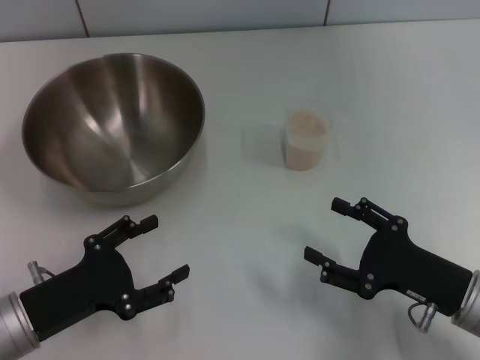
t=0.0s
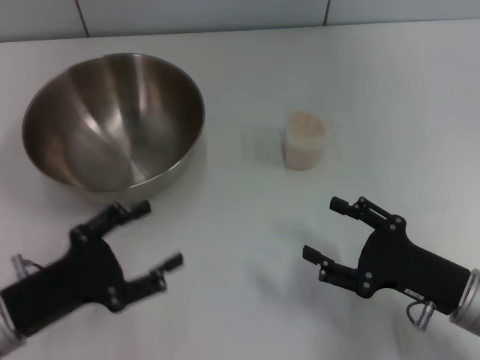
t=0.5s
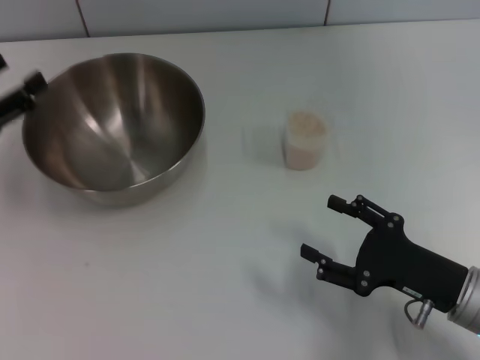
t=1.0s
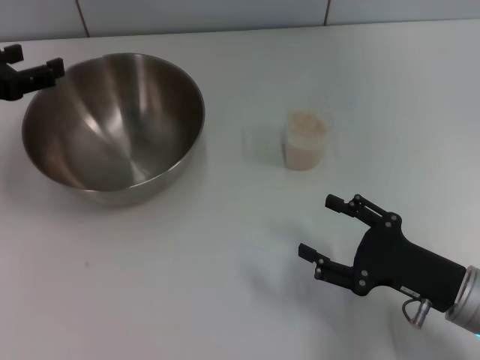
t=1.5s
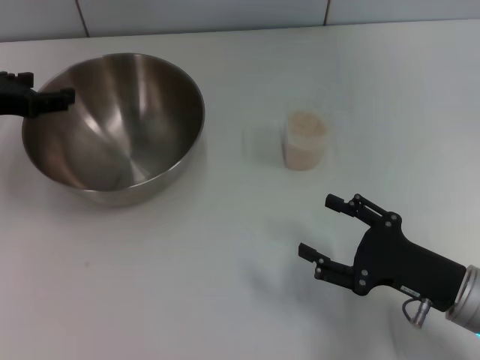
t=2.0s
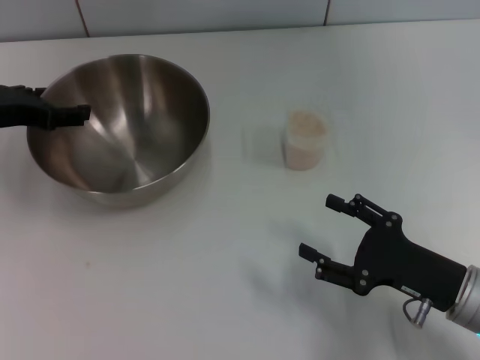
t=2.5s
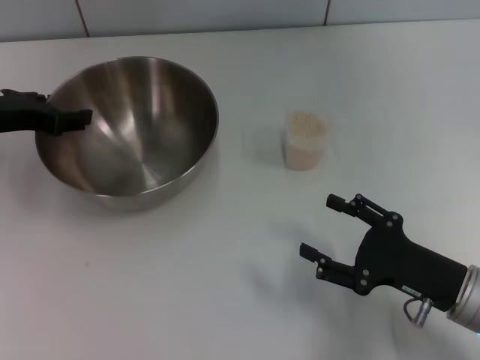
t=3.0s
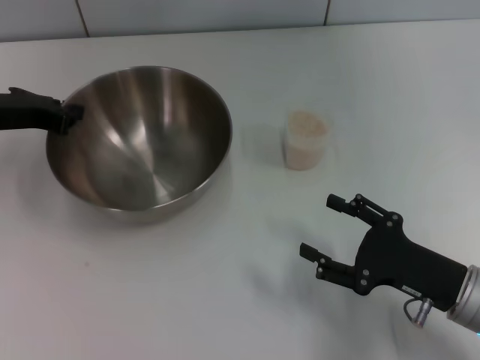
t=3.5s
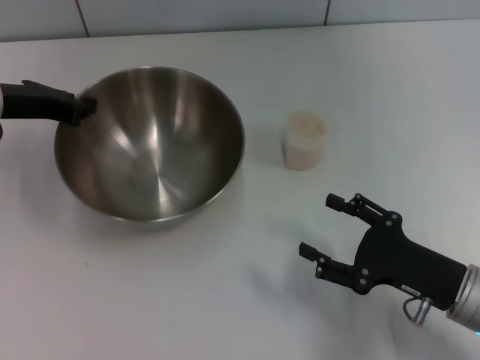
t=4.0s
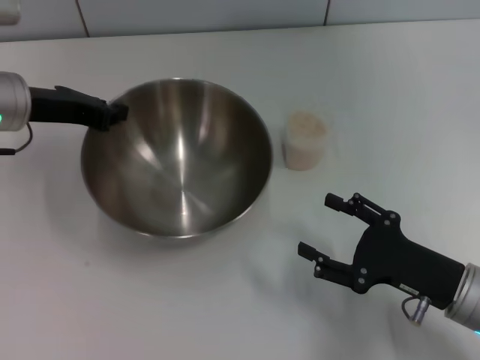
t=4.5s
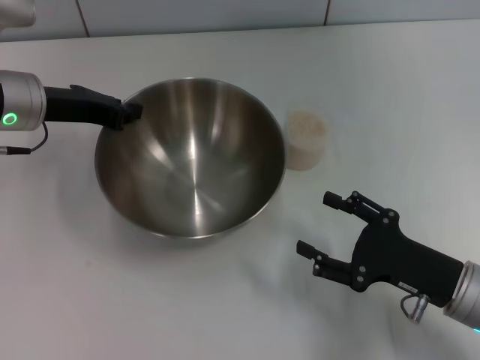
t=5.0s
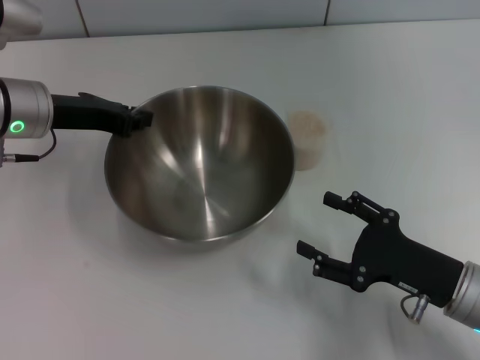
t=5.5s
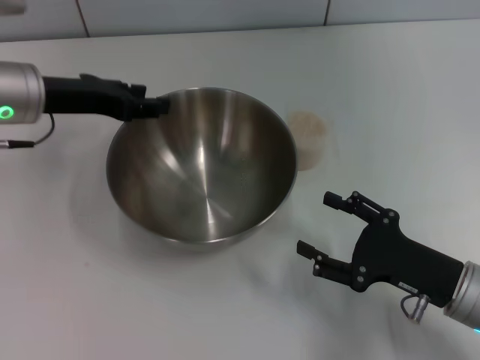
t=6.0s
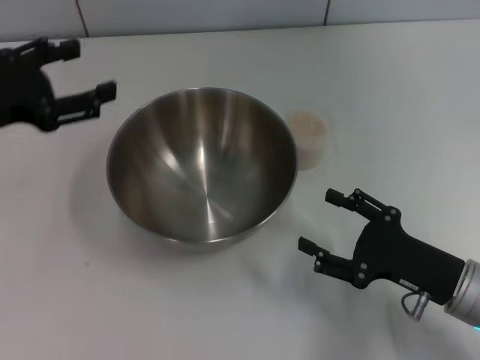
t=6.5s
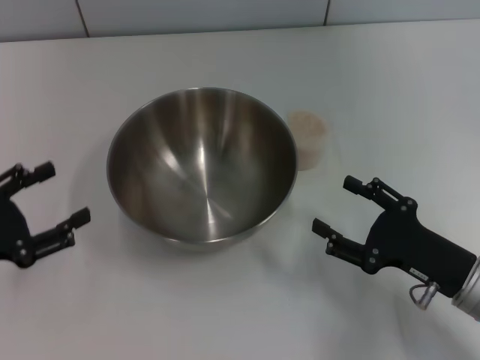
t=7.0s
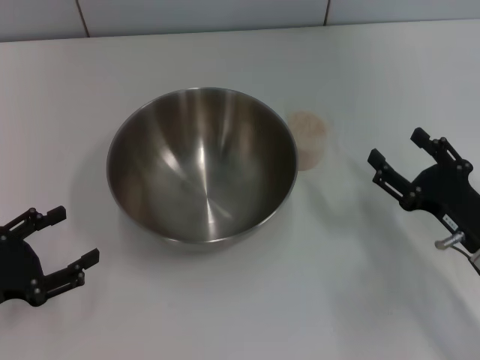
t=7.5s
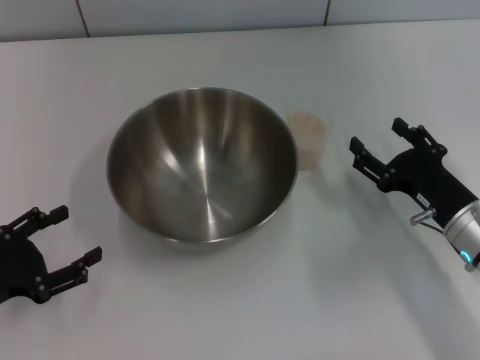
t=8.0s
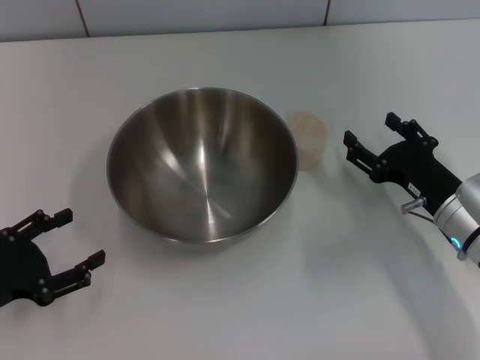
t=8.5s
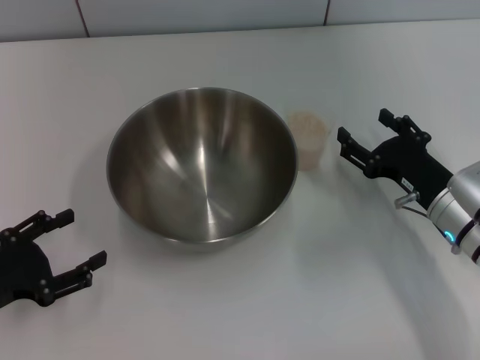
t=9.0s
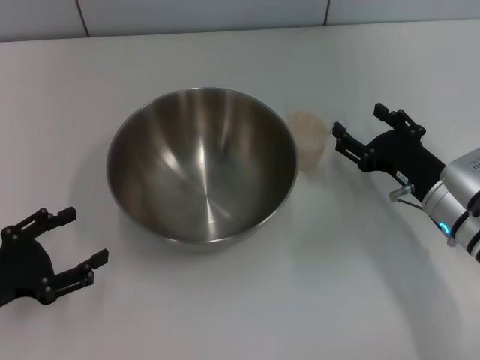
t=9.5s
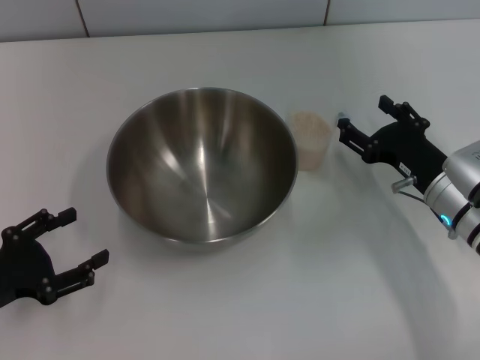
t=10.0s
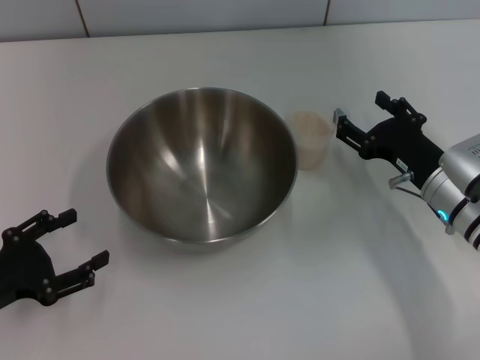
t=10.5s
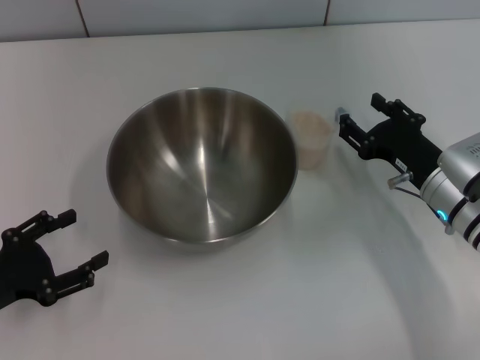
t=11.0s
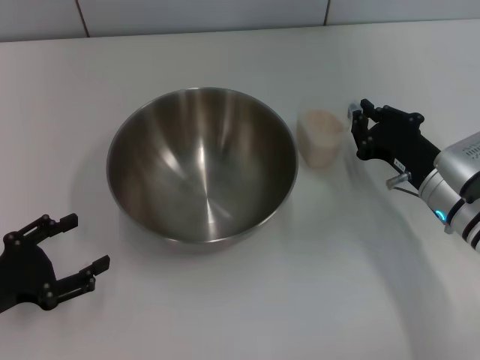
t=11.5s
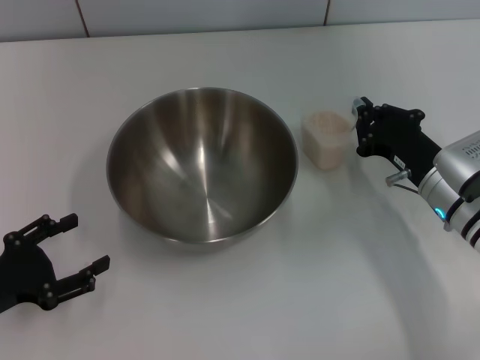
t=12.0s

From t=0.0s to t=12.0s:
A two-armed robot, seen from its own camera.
Task of the whole recording: Place the bowl in the middle of the table with one hand and pour the rice from the grain cup into it with the other hand.
Step, from t=0.0s to t=4.0s: Pick up the bowl with the left gripper.
Step, from t=4.5s to t=6.0s: Place the bowl in the center of view with the left gripper.
From t=0.0s to t=2.0s: The left gripper is displaced forward and upward by some 20 cm.
From t=2.0s to t=4.0s: The left gripper closes.
From t=6.0s to t=8.0s: The left gripper goes about 25 cm backward, downward and to the left, and opens. Meanwhile the right gripper is displaced forward by about 5 cm.
From t=8.0s to t=10.0s: There are only small adjustments of the grippers.
From t=10.0s to t=12.0s: The right gripper closes up.

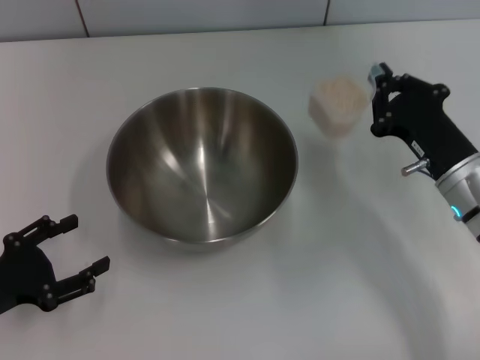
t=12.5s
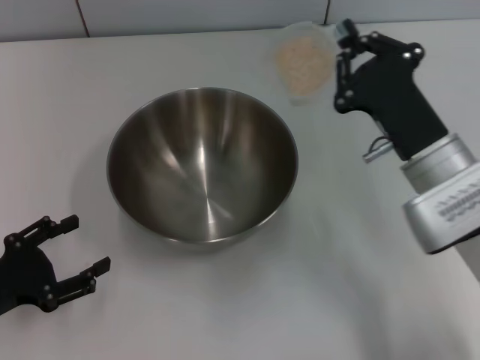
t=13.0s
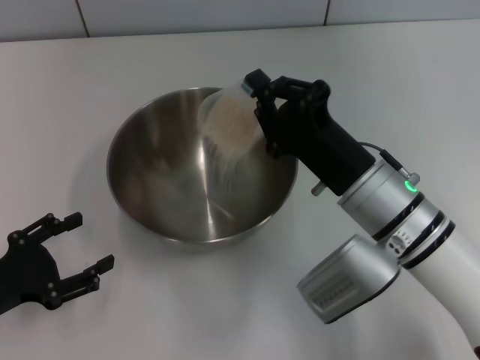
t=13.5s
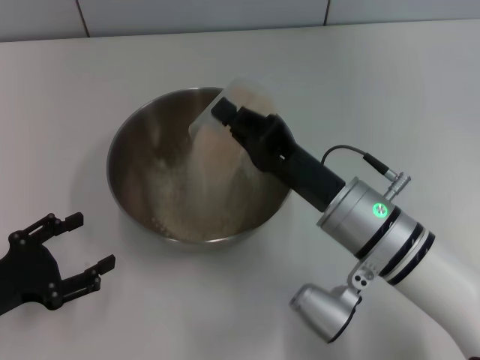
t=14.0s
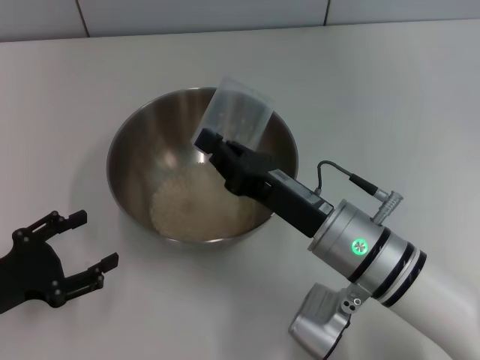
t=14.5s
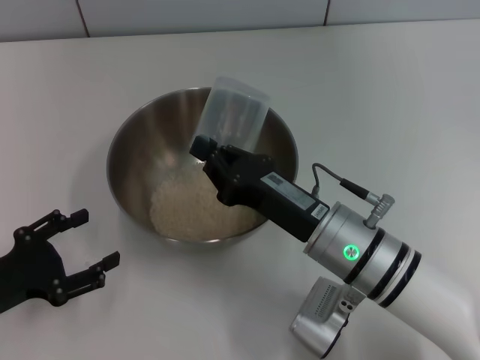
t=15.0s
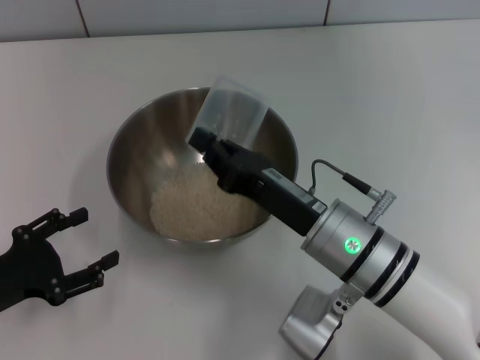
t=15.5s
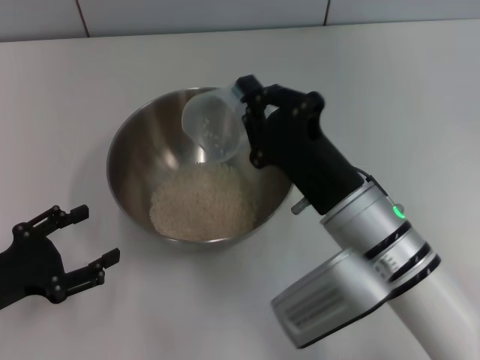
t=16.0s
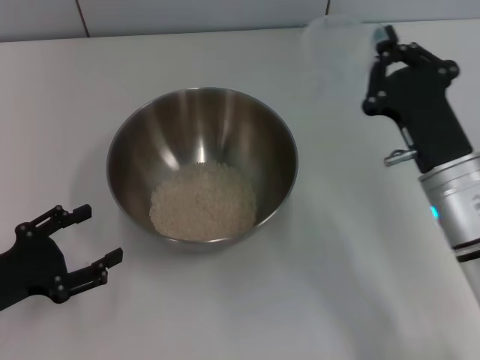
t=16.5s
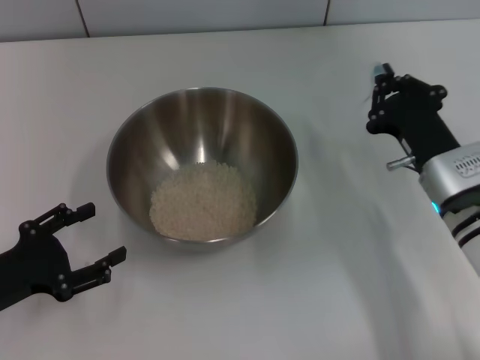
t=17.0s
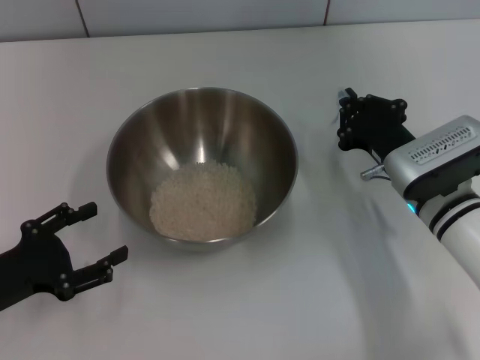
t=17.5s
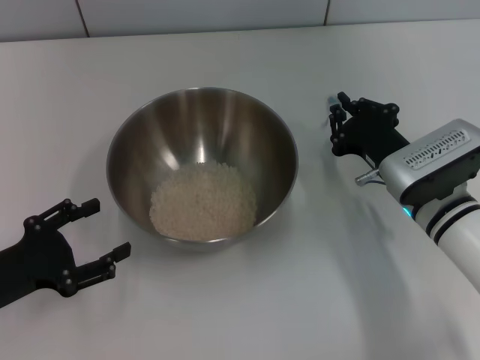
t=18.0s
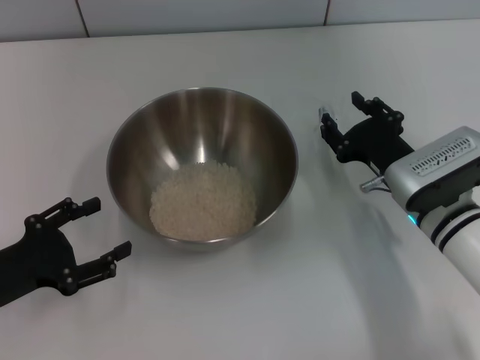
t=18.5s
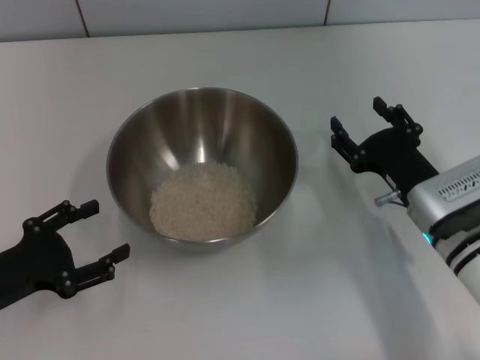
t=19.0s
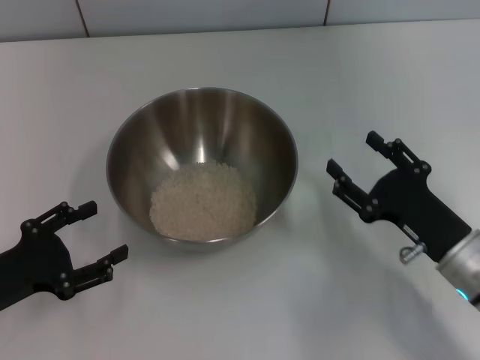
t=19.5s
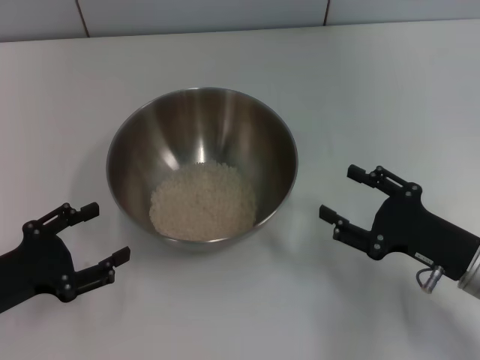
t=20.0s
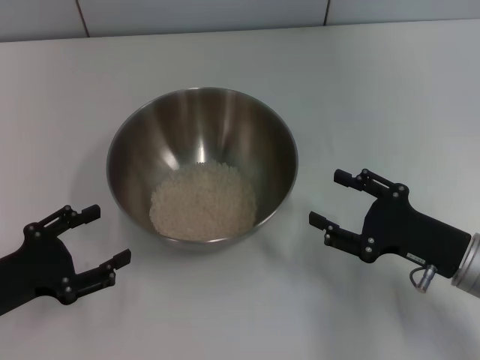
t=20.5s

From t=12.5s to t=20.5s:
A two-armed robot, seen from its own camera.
Task of the whole recording: Place the bowl in the middle of the table with one hand and pour the rice from the grain cup into it with the other hand.
Step, from t=13.0s to t=16.0s: Pour the rice from the cup into the bowl with the right gripper.
Step, from t=16.5s to t=19.5s: Place the cup on the table with the right gripper.
From t=12.5s to t=14.5s: The right gripper goes about 15 cm to the left.
From t=14.5s to t=16.5s: The right gripper travels to the right by roughly 10 cm.
From t=16.5s to t=18.5s: The right gripper moves roughly 5 cm, and opens.
From t=18.5s to t=20.5s: The right gripper travels backward and to the right by roughly 10 cm, and opens its fingers.

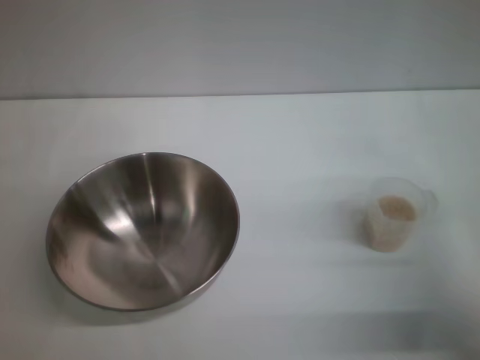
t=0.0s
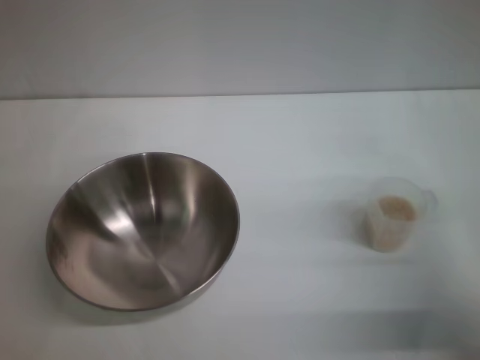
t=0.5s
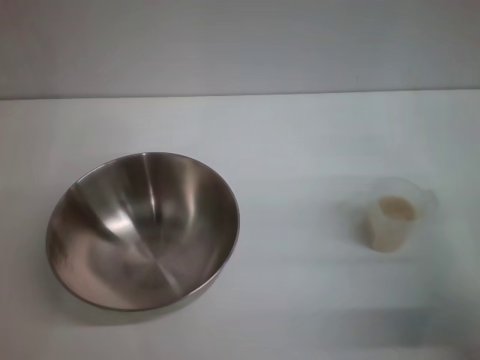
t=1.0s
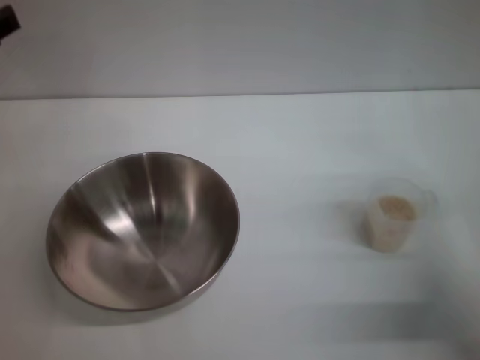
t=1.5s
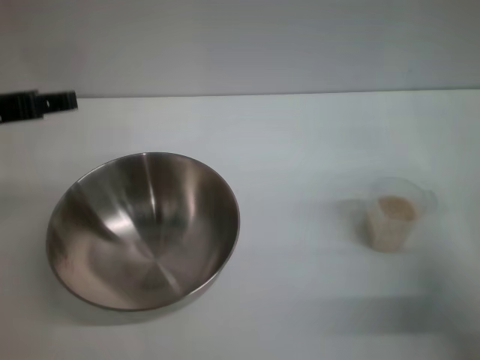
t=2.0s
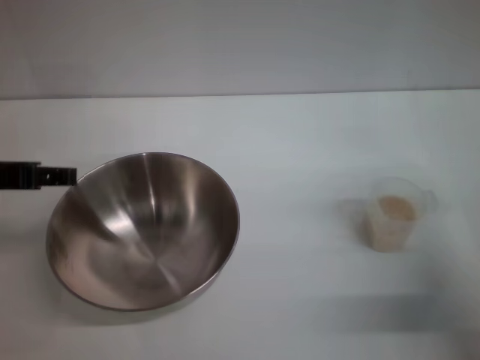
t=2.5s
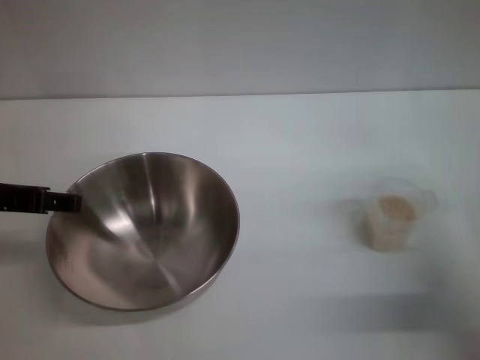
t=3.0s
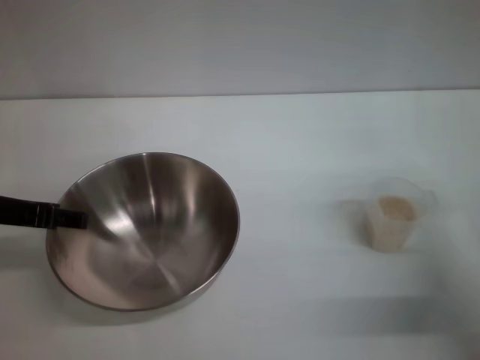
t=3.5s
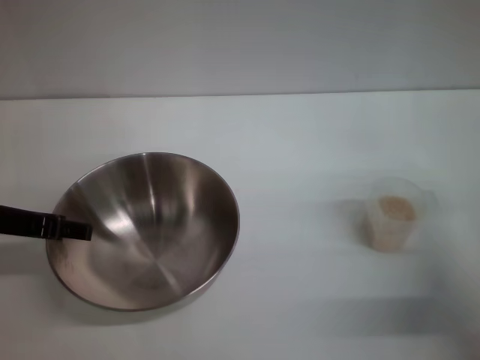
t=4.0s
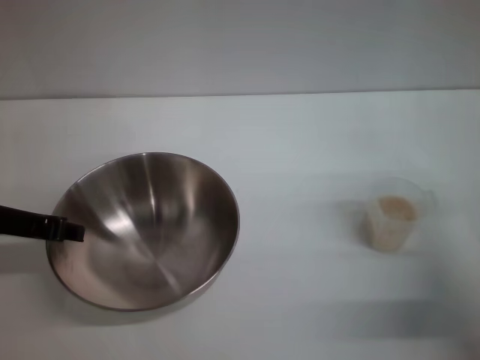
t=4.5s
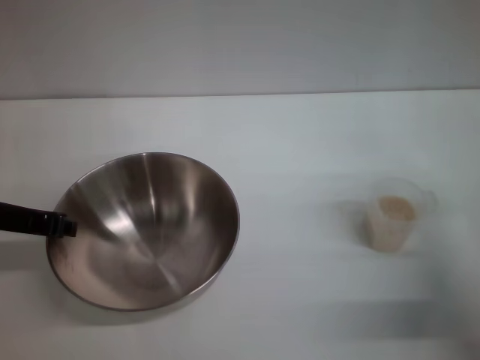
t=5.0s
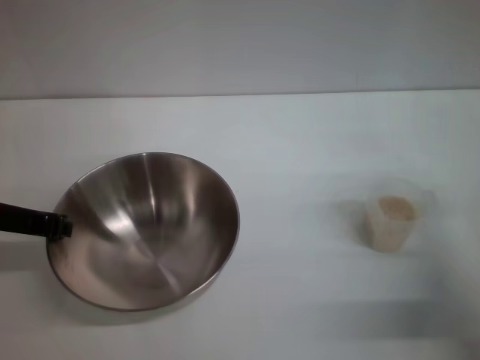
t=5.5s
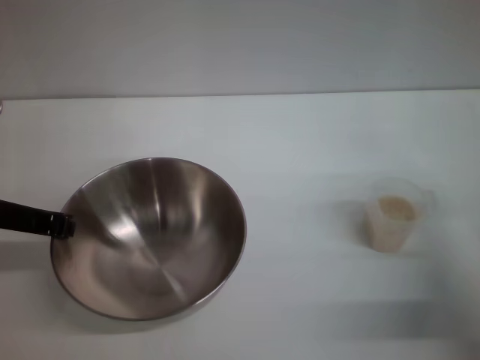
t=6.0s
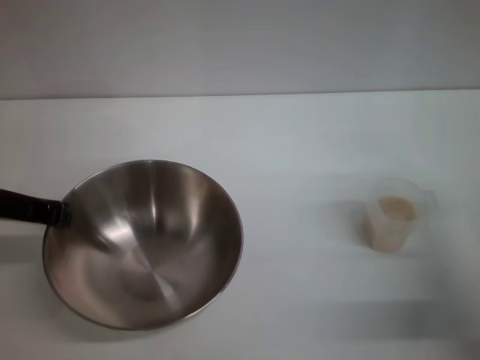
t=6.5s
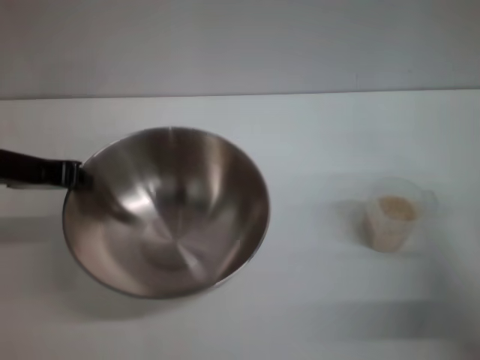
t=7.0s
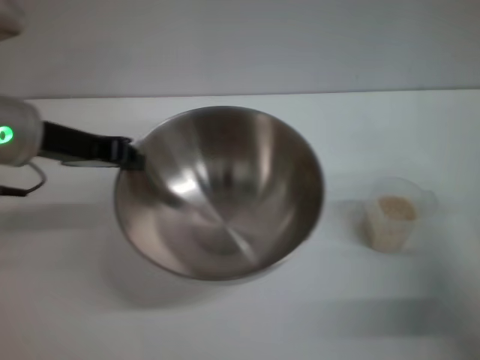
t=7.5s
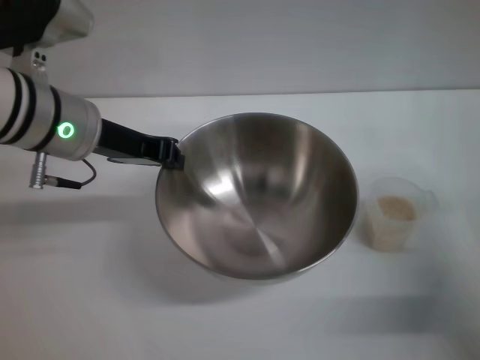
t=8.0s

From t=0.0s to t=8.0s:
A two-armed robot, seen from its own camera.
Task of the whole recording: Place the bowl in the middle of the table with one hand and pour the rice from the grain cup into it with the other hand.
Step, from t=0.0s to t=7.0s: Pick up the bowl with the left gripper.
From t=0.0s to t=2.0s: The left gripper shifts some 15 cm upward.
From t=2.0s to t=4.0s: The left gripper travels downward by approximately 5 cm.
From t=4.0s to t=6.0s: The left gripper closes.
From t=6.0s to t=8.0s: The left gripper goes approximately 10 cm to the right and forward.
